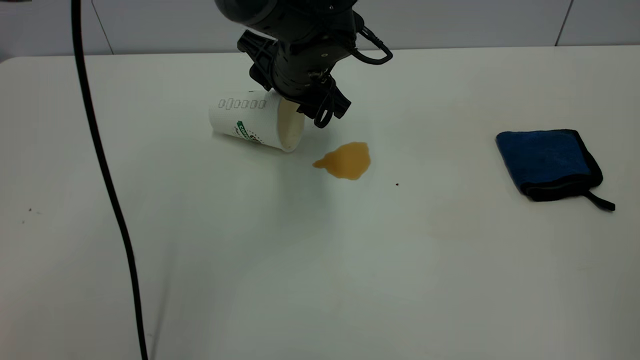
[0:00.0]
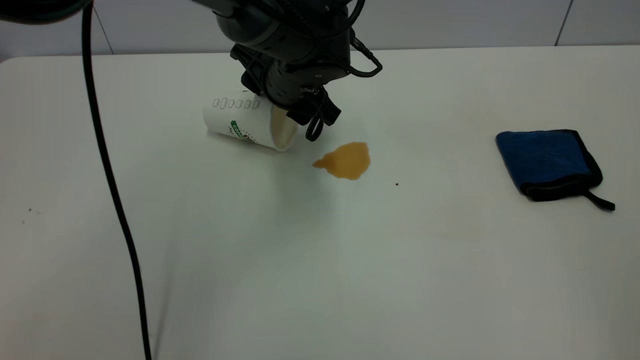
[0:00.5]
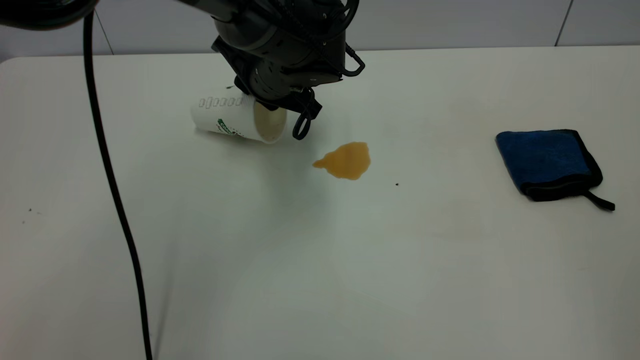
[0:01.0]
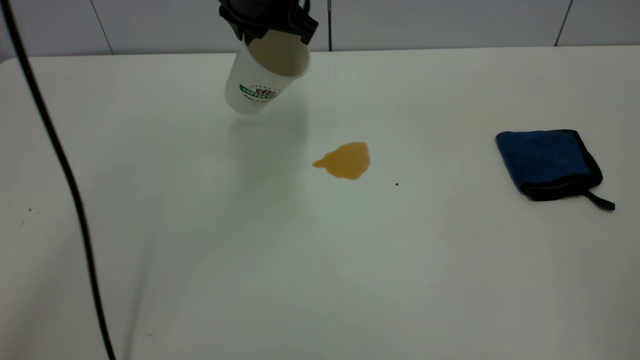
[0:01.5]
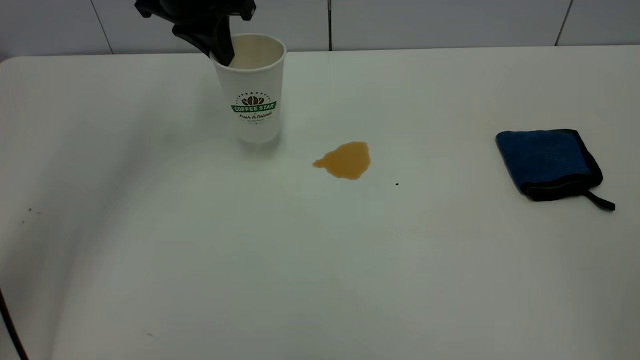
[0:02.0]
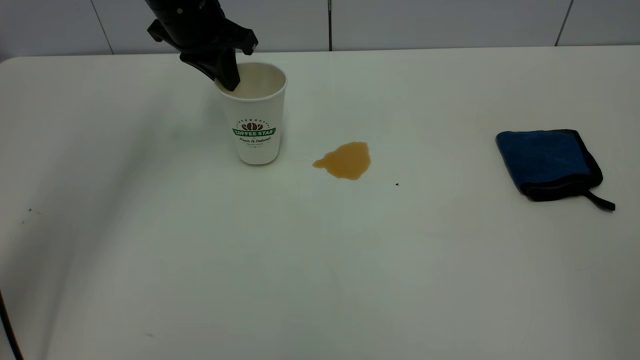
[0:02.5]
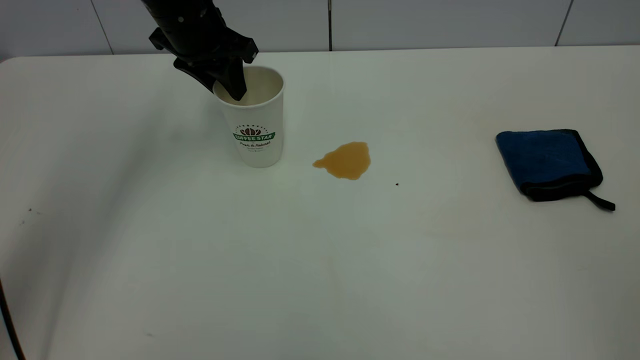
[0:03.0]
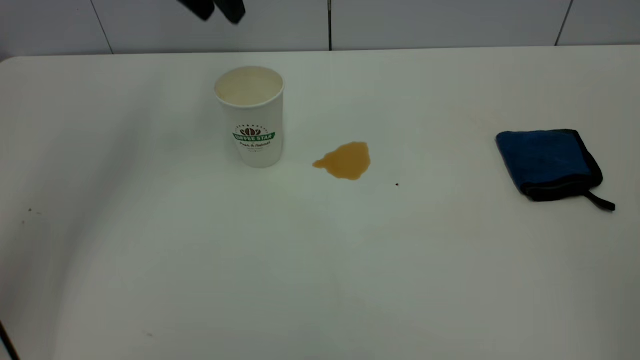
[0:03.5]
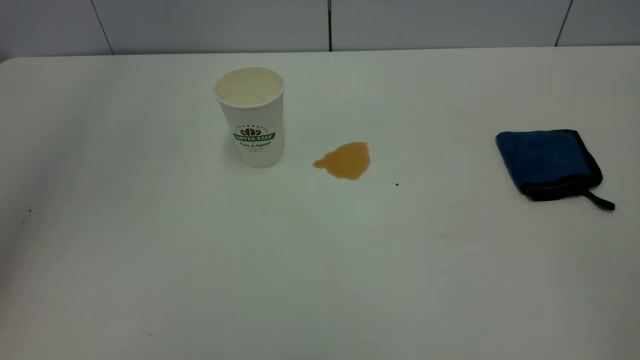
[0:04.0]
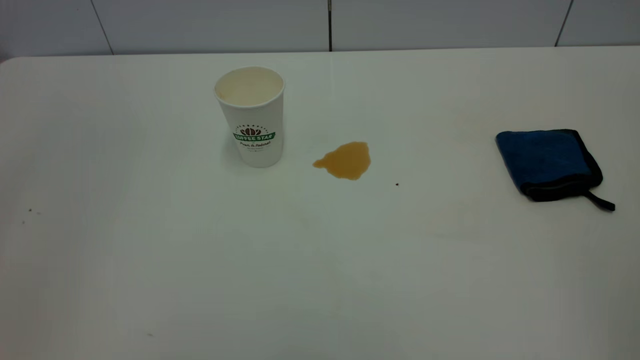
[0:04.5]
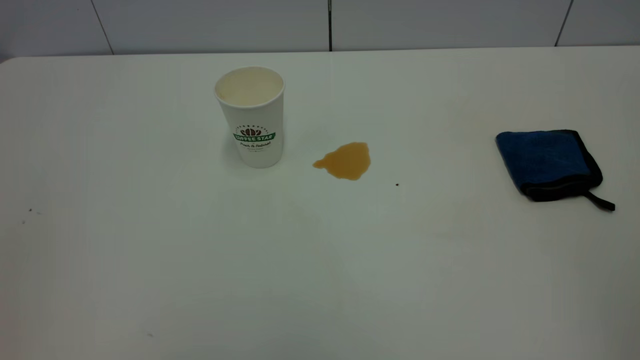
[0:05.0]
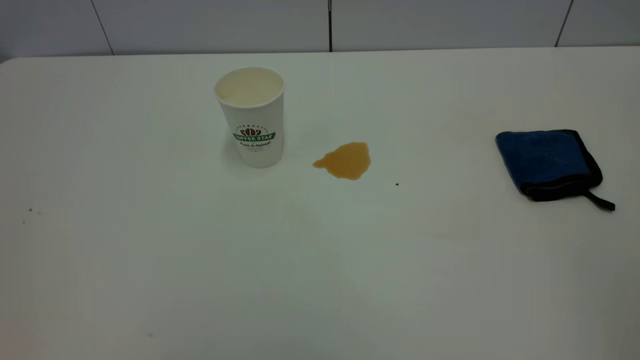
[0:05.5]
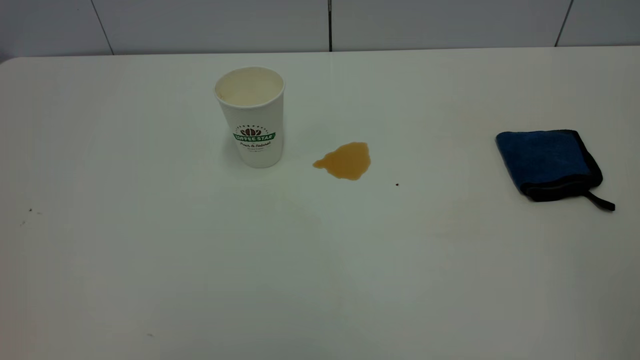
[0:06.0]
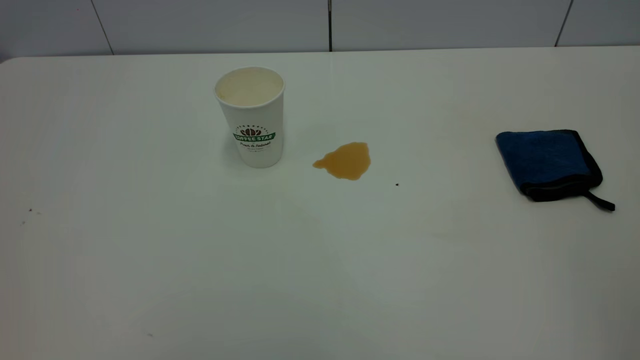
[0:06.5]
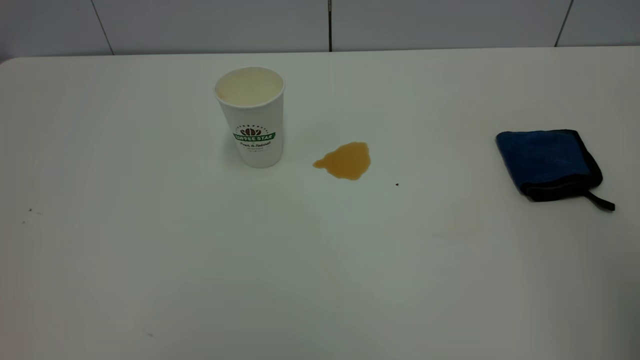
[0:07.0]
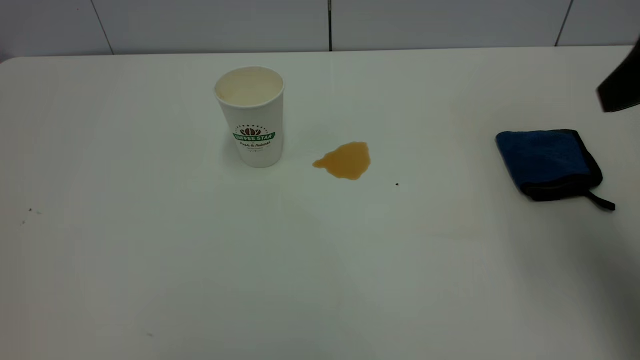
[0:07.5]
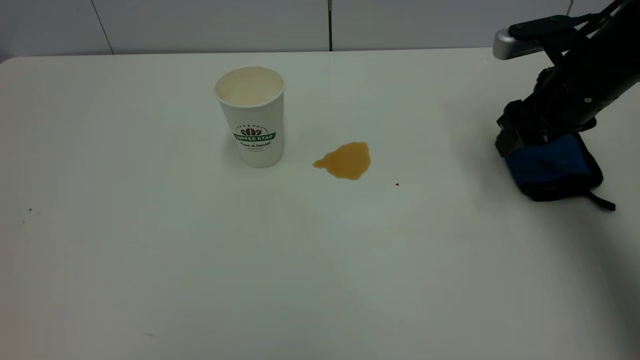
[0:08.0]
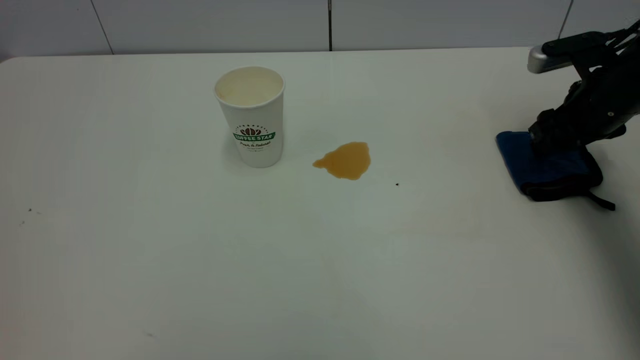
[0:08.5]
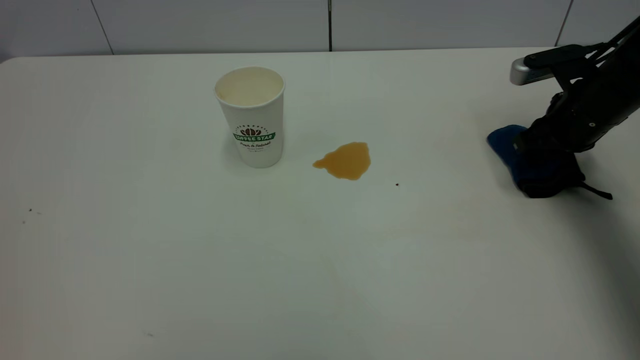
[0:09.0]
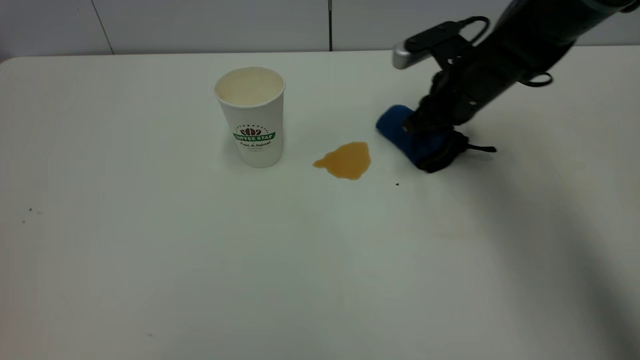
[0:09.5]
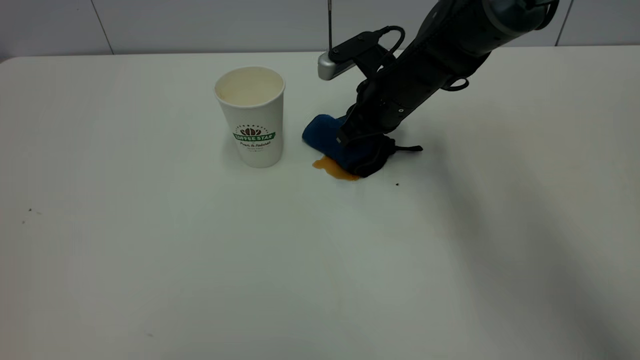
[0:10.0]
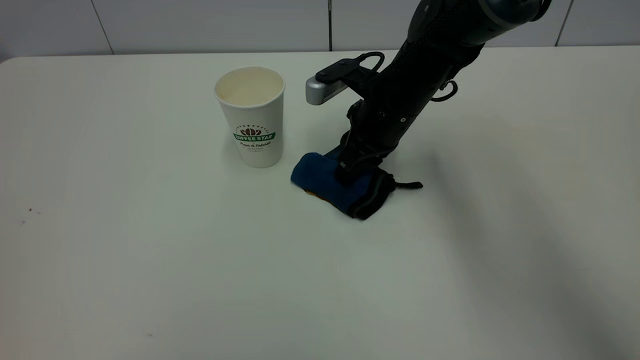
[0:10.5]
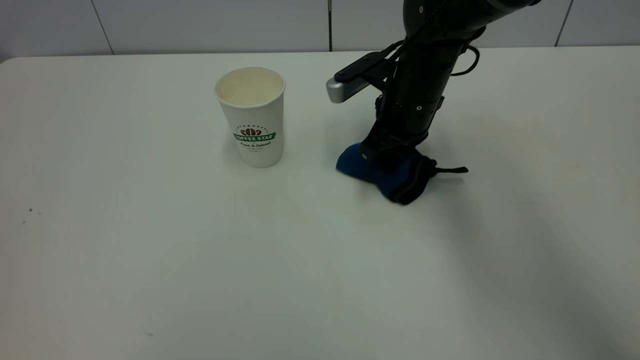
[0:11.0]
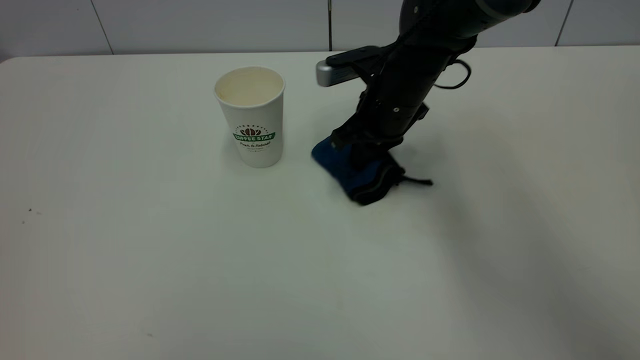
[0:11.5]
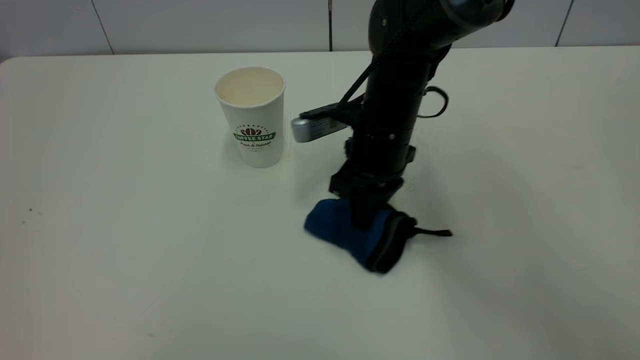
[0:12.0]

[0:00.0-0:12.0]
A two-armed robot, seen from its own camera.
Task of the whole recording: the left gripper pick up the fallen cup and place it upright, the right gripper grasp the blue rag and wipe the tea stain on the table, the right gripper put the blue rag back in its original position.
Step, 0:00.0 to 0:03.0: Stand the paper cup upright.
0:00.0 to 0:02.0: The left gripper goes about 15 cm to the left and upward, and closes.
0:02.0 to 0:04.0: The left gripper moves upward and backward, roughly 30 cm, and opens.
0:04.0 to 0:06.0: The left gripper moves backward and downward, about 40 cm.
0:06.0 to 0:08.0: The right gripper moves forward and downward, roughly 50 cm.
0:08.0 to 0:10.0: The right gripper moves to the left and forward, some 20 cm, and closes.
0:10.0 to 0:12.0: The right gripper moves backward, roughly 5 cm.

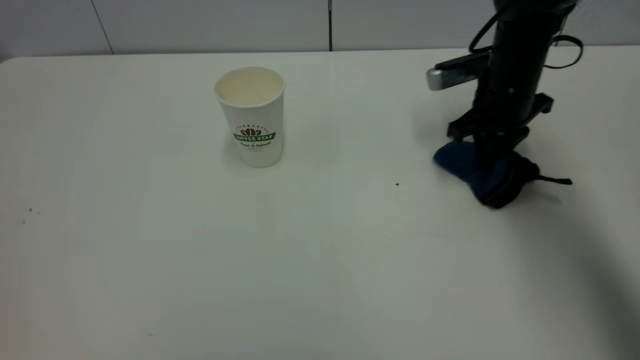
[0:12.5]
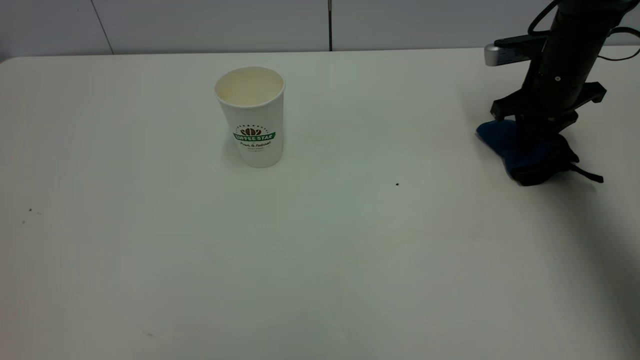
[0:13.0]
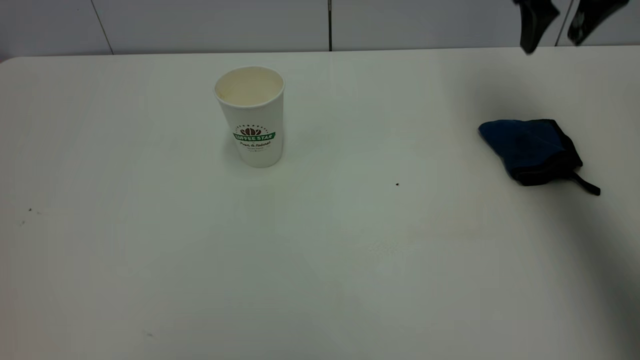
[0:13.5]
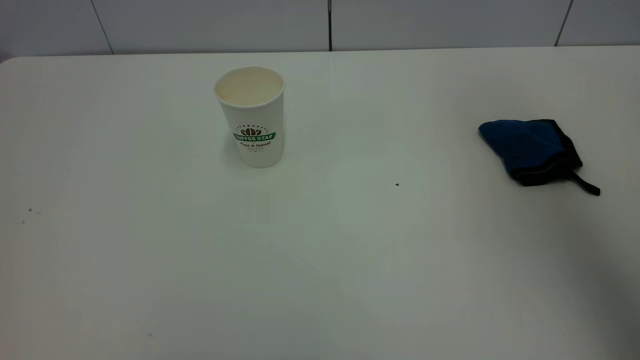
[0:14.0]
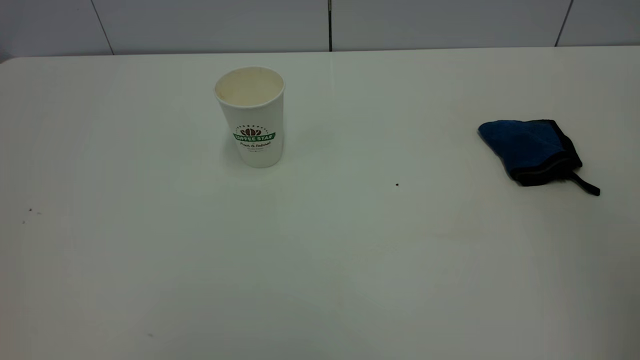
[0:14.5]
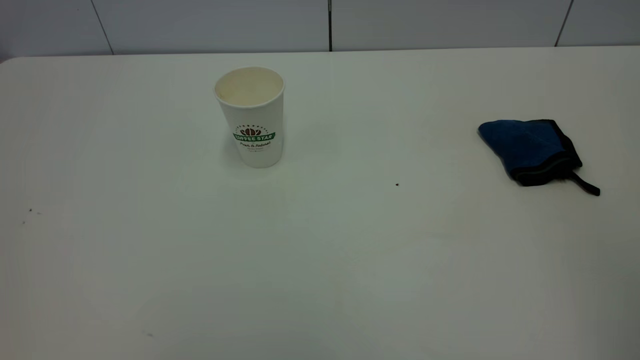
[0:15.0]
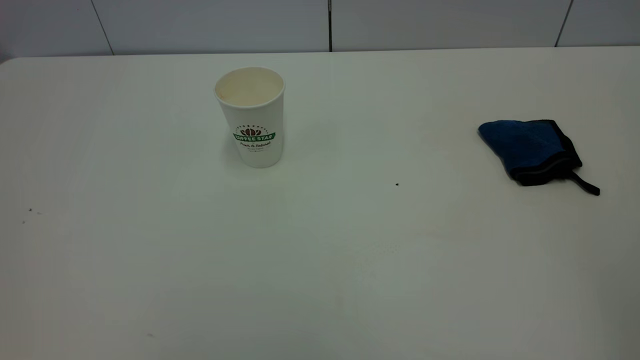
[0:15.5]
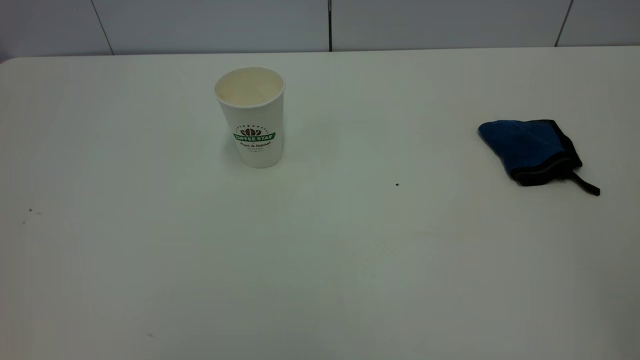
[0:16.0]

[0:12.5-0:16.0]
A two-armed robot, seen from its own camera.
Task of the whole recording: the left gripper pick up the fallen cup and place it upright, the right gripper grasp the blue rag and wipe the tea stain on the table, the right gripper put the blue rag back in its original position.
0:12.5 to 0:14.5: The right gripper shifts about 50 cm backward and upward, and opens its fingers.
